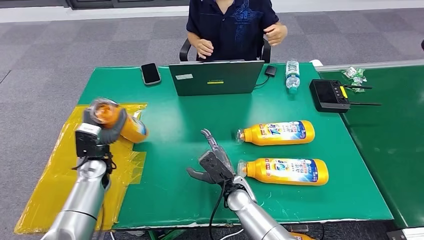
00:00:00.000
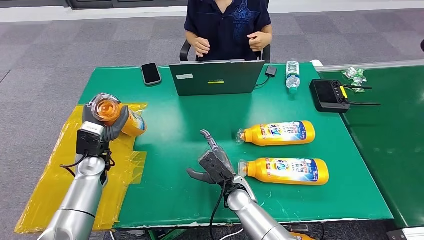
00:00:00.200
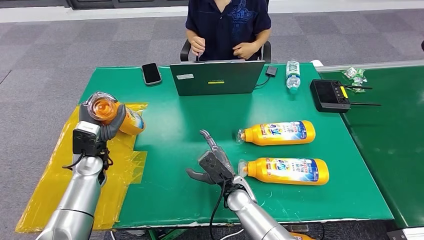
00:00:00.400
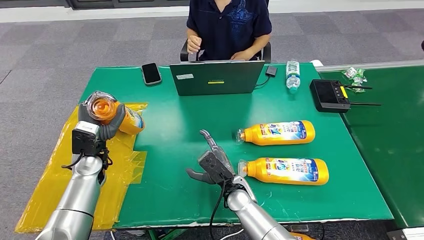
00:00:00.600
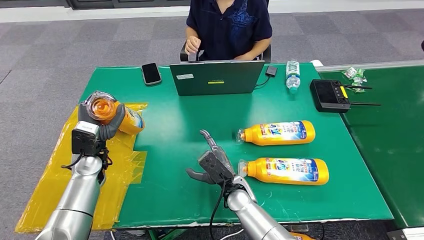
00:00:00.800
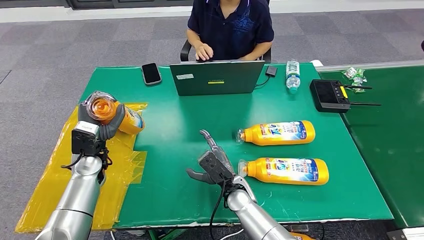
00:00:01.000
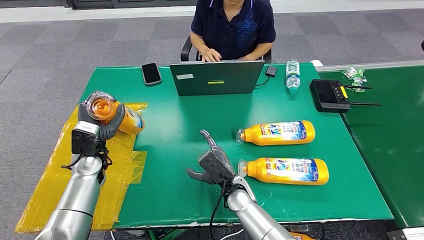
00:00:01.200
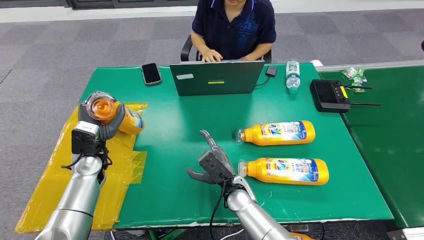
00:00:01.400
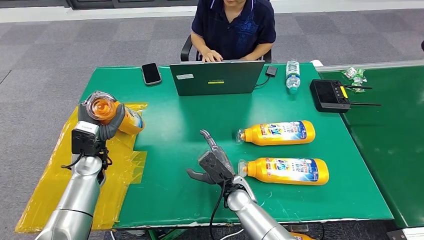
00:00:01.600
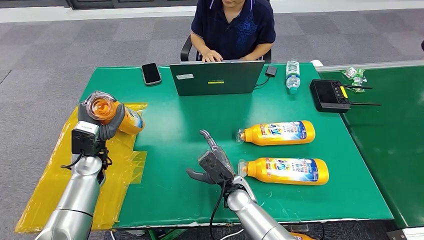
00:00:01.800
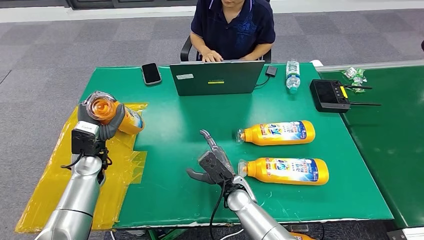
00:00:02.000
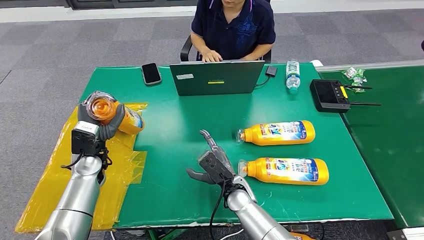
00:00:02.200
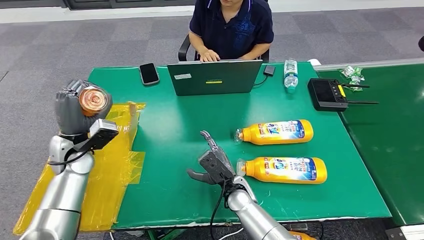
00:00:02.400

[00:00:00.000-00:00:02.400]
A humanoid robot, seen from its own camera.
Step, 00:00:00.000 to 00:00:02.400: Turn the bottle to the front side.
00:00:00.000 to 00:00:01.200: The hands make only small movements.
